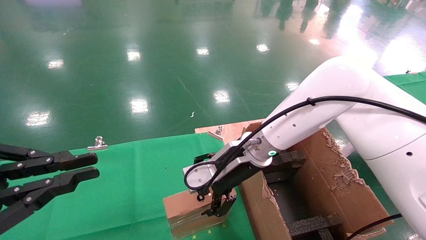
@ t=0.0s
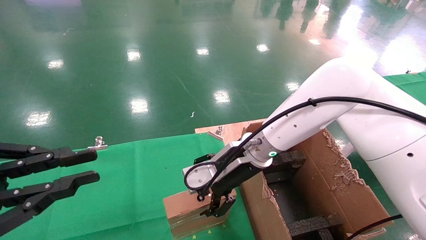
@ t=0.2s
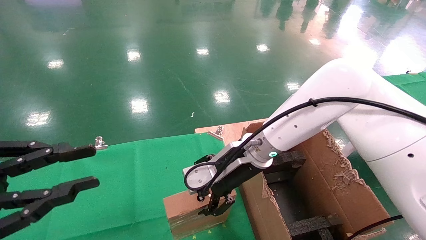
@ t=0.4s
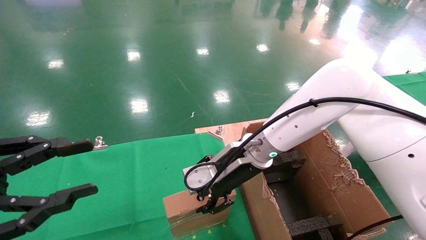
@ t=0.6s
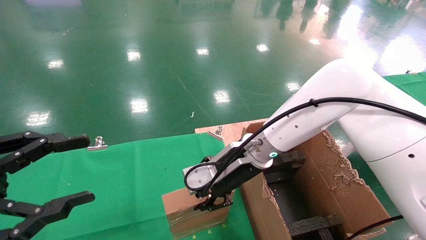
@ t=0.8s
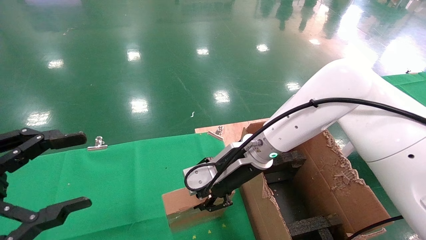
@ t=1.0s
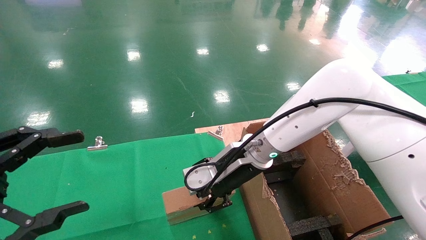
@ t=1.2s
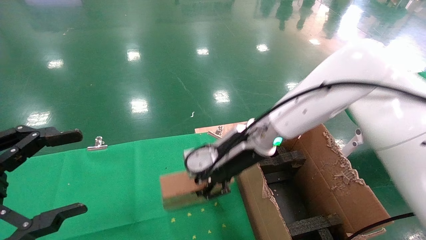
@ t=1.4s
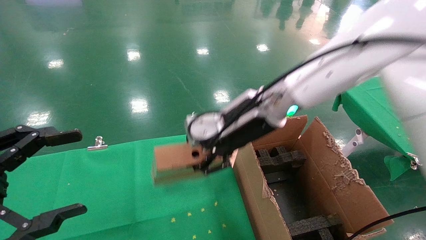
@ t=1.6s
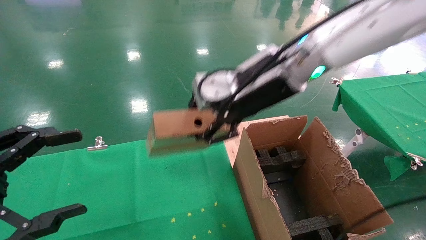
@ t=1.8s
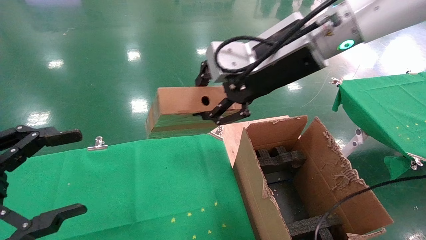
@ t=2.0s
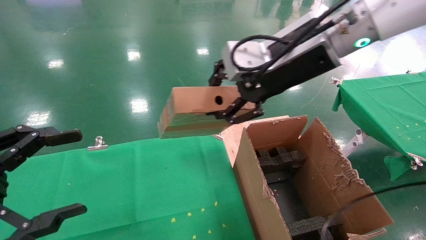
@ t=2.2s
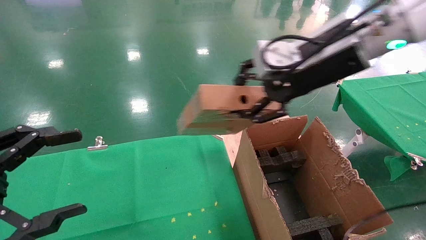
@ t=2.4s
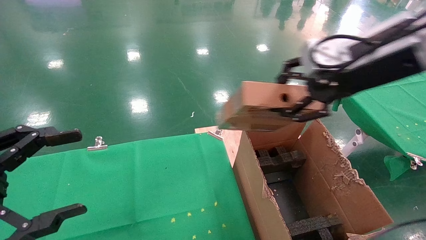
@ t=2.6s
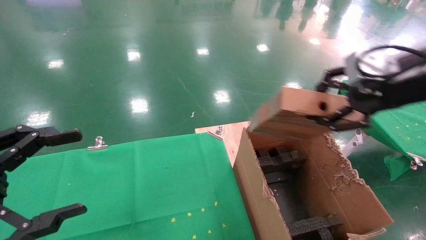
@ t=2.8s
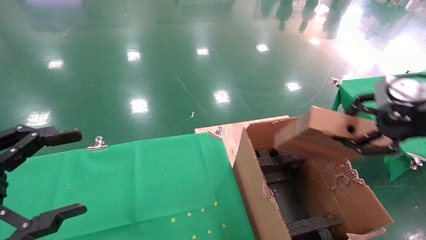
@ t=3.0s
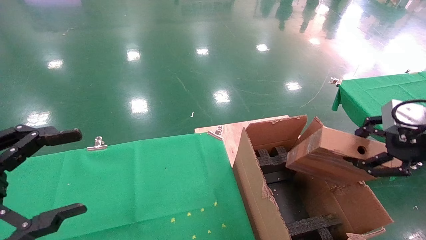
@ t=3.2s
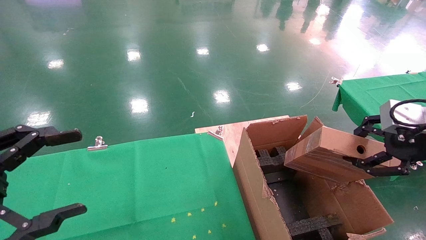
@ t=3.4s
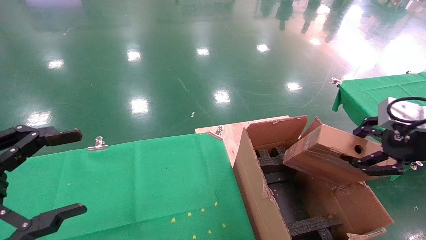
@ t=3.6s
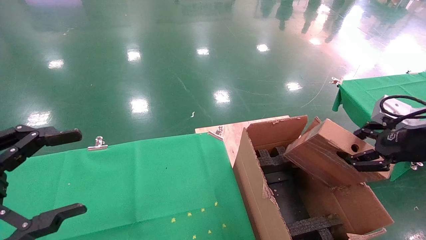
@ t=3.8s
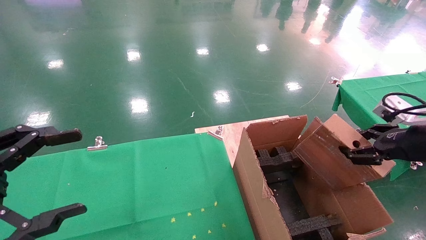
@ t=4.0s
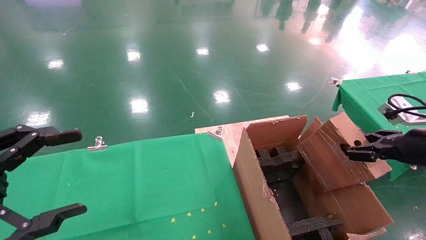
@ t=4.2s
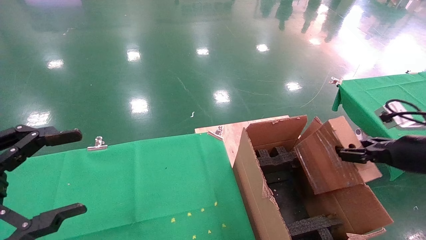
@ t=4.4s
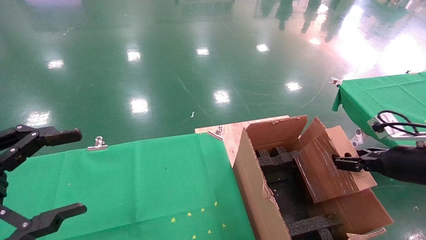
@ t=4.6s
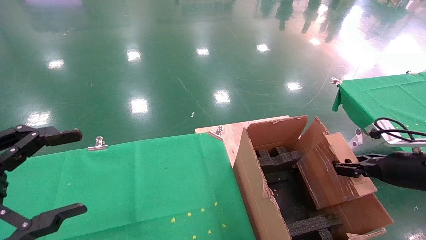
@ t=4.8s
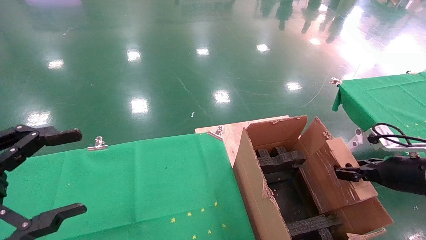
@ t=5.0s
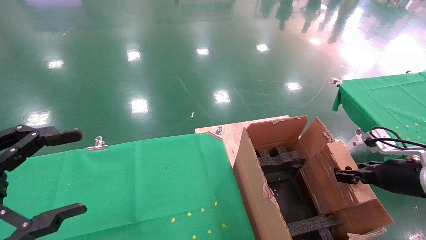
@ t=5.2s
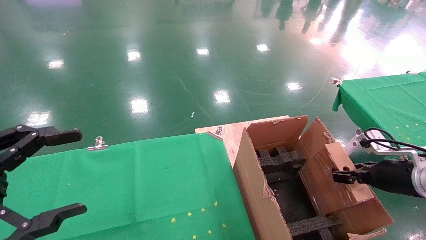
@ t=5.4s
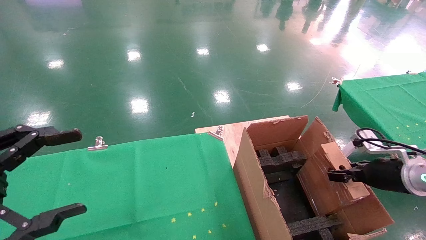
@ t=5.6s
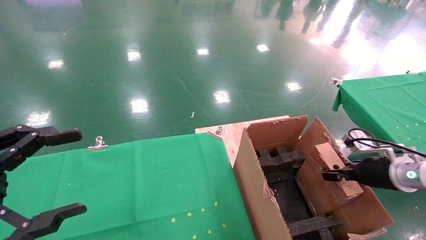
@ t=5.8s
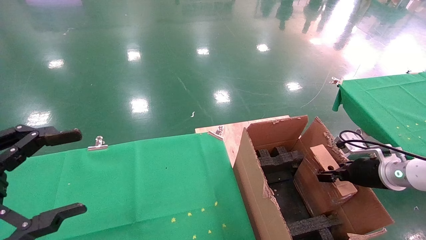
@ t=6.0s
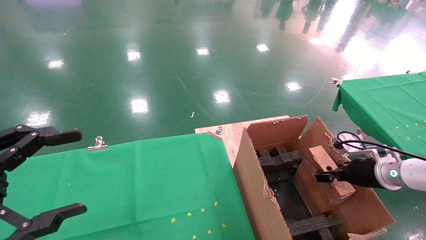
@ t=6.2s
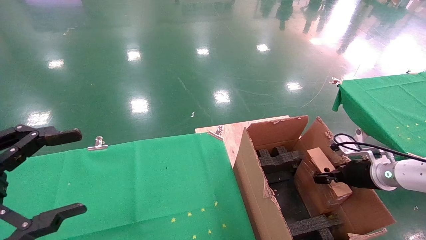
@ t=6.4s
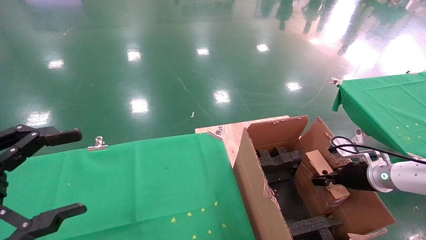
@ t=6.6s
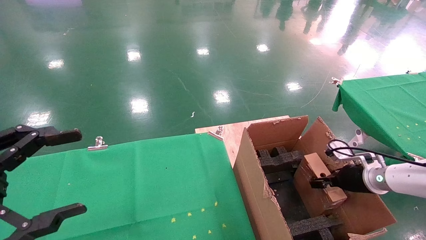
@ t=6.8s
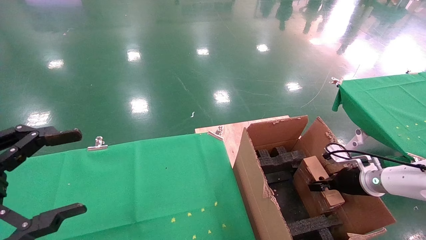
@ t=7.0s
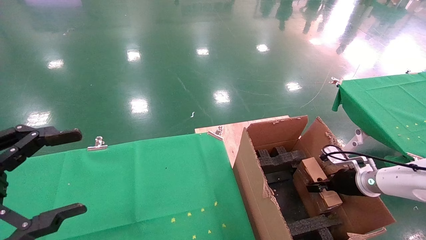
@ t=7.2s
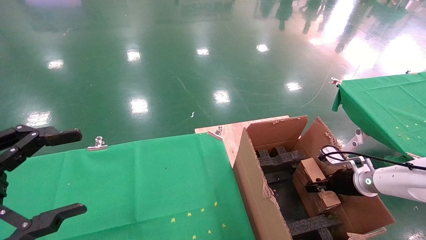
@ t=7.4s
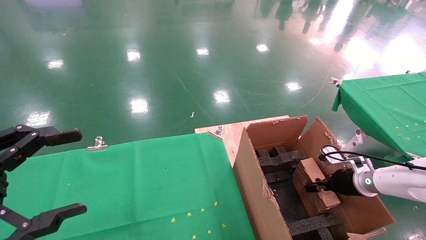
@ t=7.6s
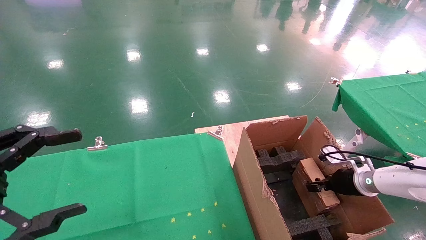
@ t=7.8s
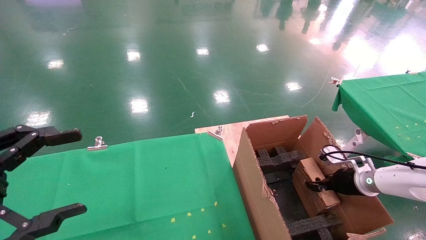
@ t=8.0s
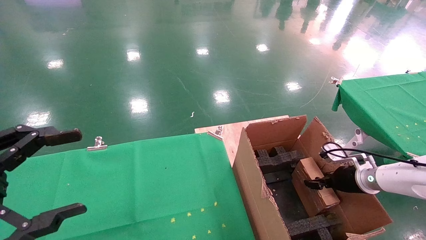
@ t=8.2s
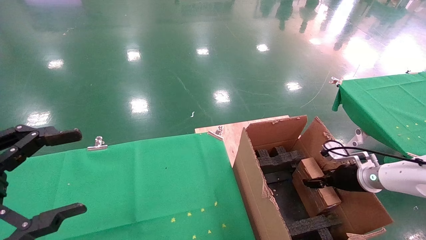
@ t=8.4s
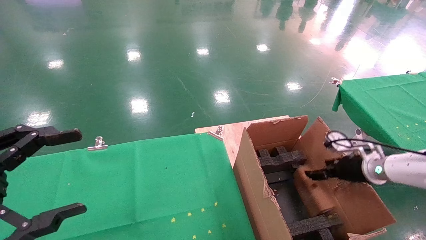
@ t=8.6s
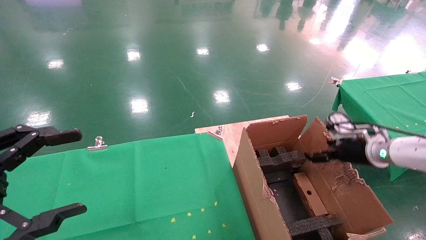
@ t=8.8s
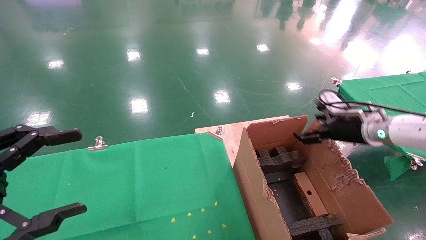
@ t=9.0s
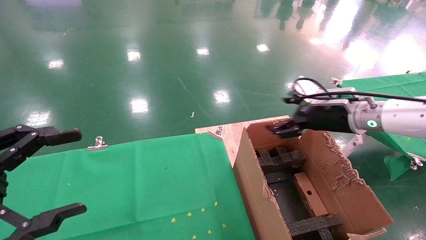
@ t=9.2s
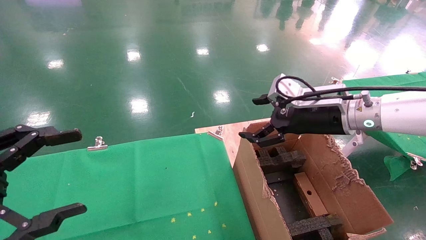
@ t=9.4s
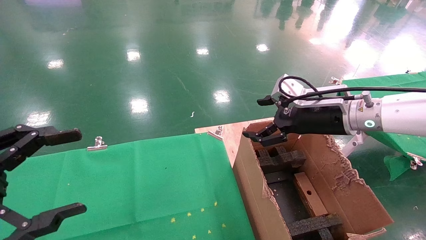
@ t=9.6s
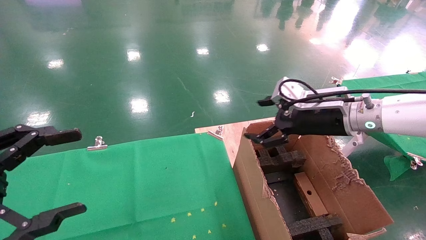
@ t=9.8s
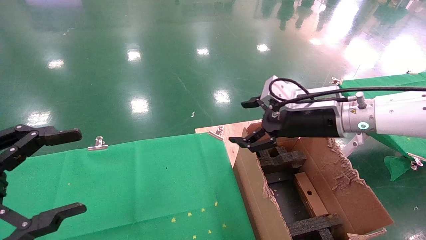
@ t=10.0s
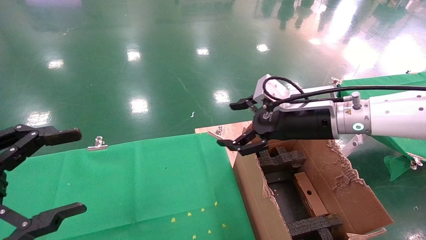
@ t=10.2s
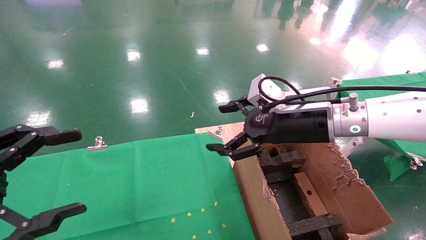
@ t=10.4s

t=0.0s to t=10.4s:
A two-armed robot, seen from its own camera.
Task of the whole recording: using a robotic arm to pick up a cardboard box and palace it the carton.
Step, t=1.4s to t=9.0s: Place the mouse and the power cord paper box into the container.
t=0.0s to t=1.4s: The right gripper closes up, while the left gripper opens.
t=1.4s to t=3.0s: The right gripper shifts roughly 30 cm to the right and backward.
t=3.0s to t=4.4s: The right gripper shifts approximately 15 cm downward.
t=4.4s to t=6.0s: The right gripper goes approximately 10 cm downward and forward.
t=6.0s to t=7.4s: The right gripper moves downward and forward, about 10 cm.
t=7.4s to t=9.0s: The right gripper moves upward, some 15 cm, and opens its fingers.
t=9.0s to t=10.4s: The right gripper is displaced to the left by roughly 15 cm.

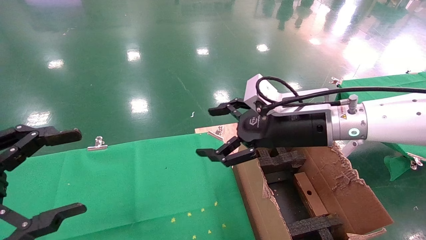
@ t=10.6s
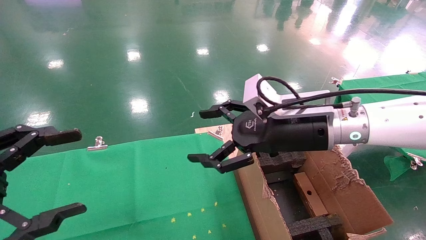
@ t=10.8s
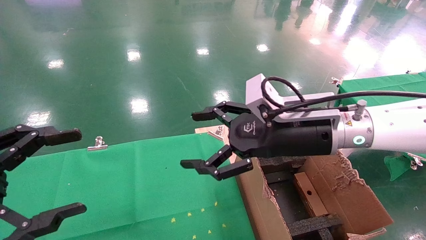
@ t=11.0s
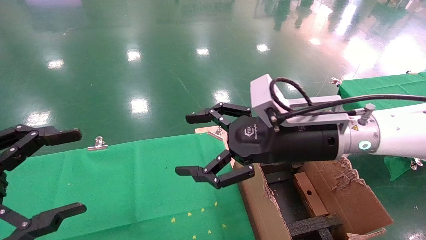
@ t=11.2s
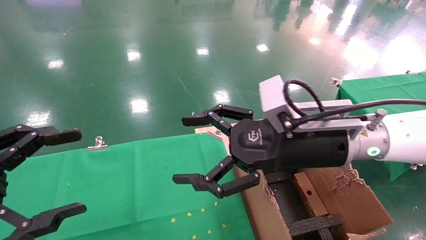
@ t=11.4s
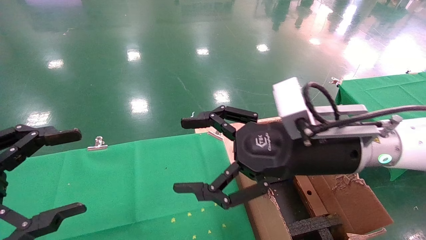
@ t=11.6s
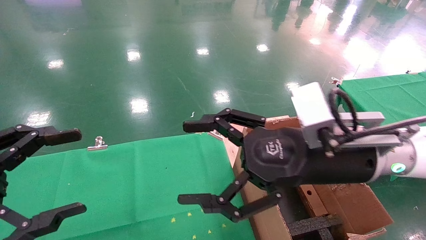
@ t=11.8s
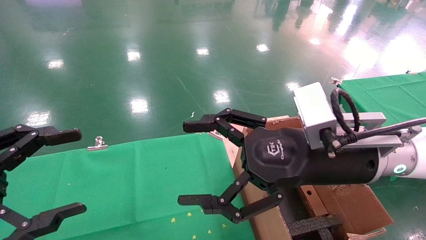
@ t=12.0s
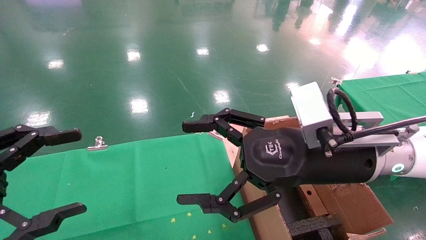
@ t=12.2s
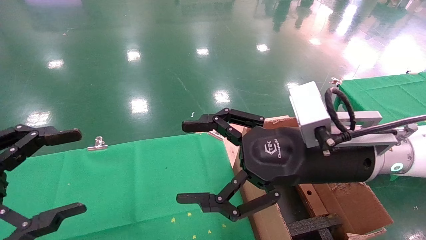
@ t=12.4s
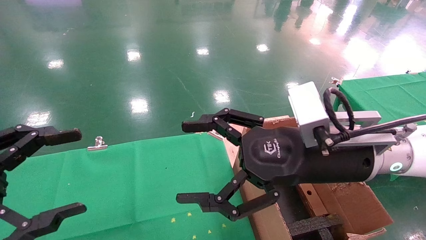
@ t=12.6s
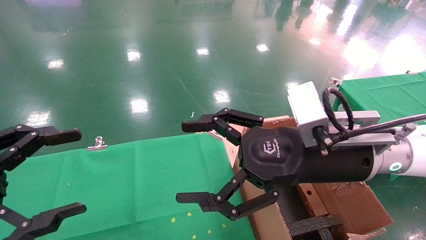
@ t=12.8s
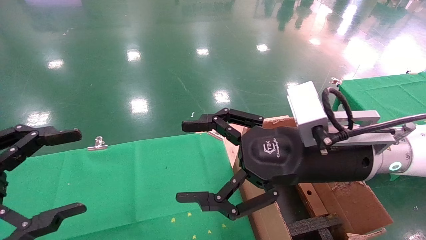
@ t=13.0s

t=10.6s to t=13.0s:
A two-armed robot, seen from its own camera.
Task of the whole recording: using a robotic arm to pick up a cardboard box and palace it the carton.
t=10.6s to t=11.8s: The right gripper travels backward by roughly 5 cm.
t=11.8s to t=13.0s: Both grippers stay about where they are.
